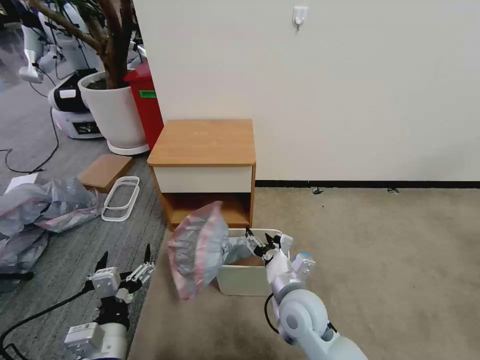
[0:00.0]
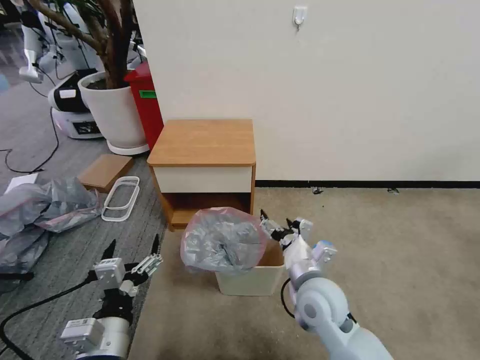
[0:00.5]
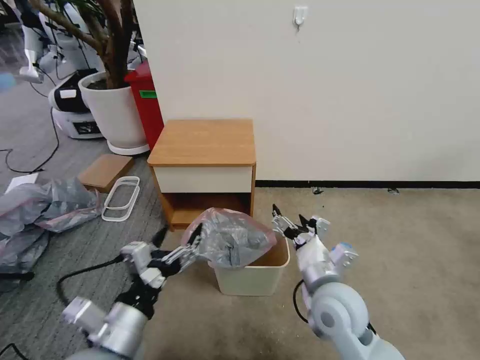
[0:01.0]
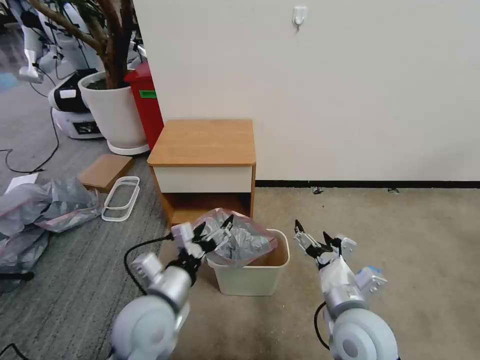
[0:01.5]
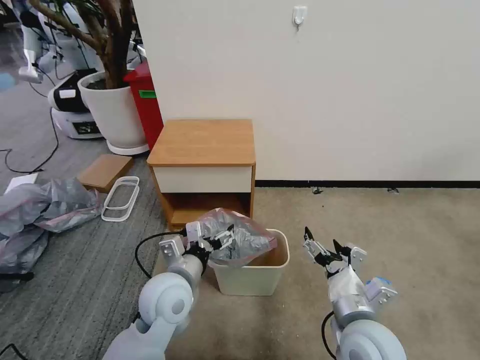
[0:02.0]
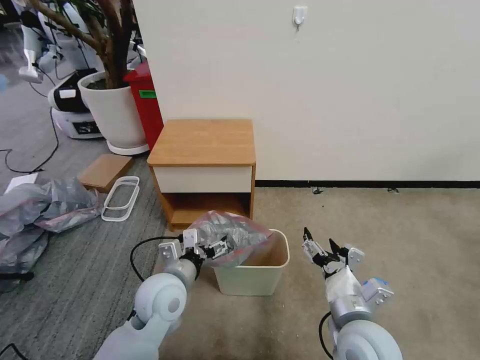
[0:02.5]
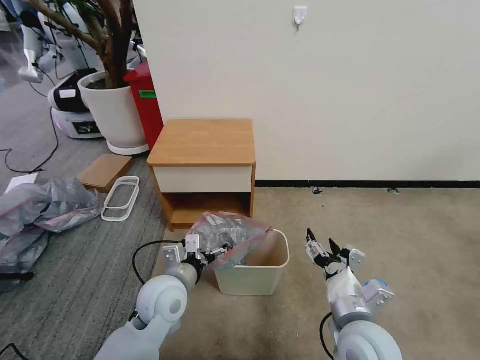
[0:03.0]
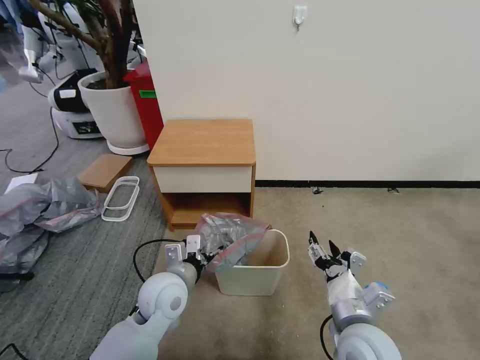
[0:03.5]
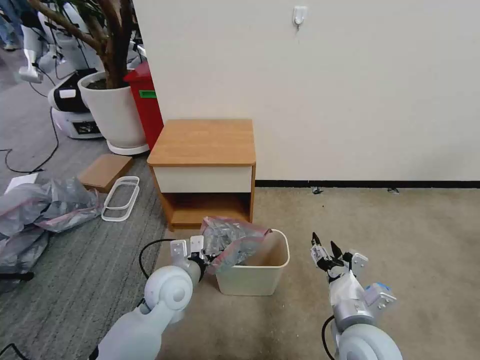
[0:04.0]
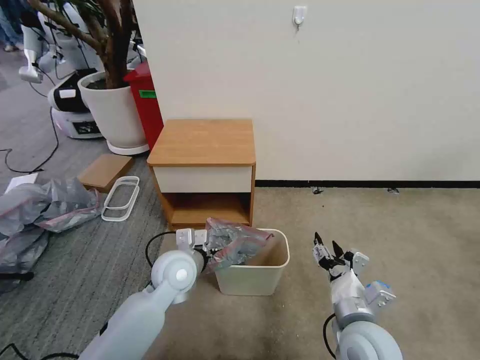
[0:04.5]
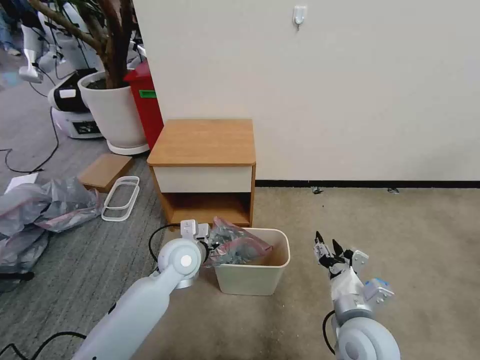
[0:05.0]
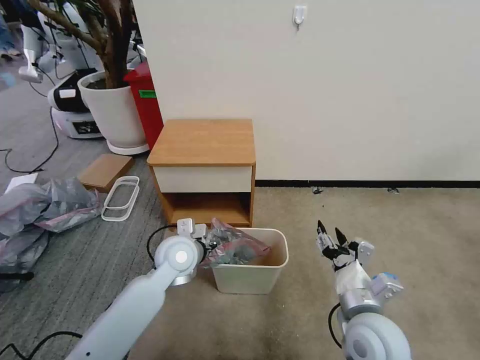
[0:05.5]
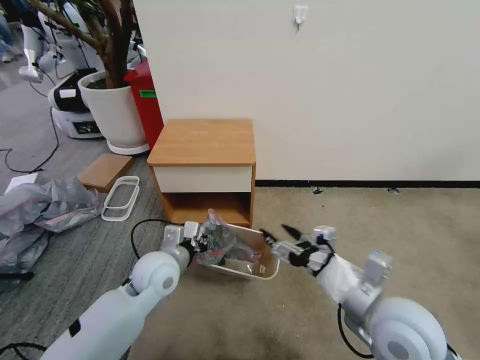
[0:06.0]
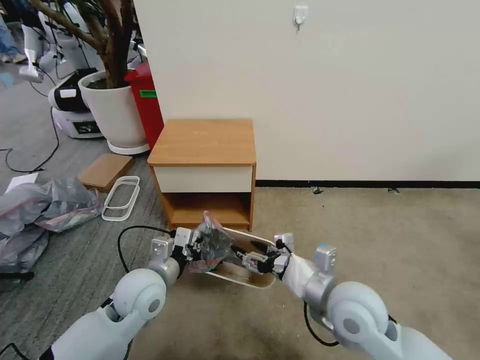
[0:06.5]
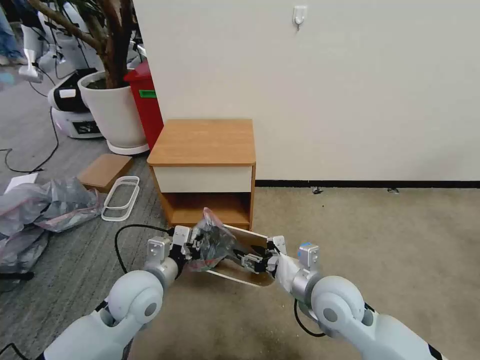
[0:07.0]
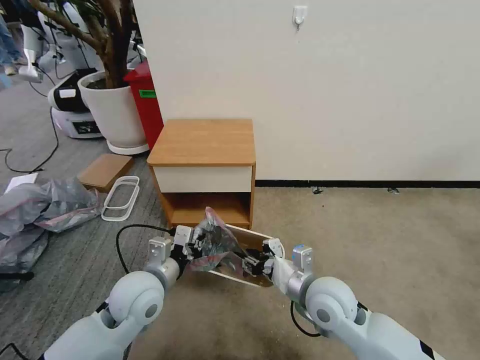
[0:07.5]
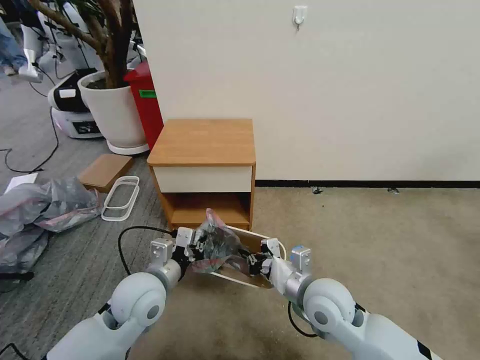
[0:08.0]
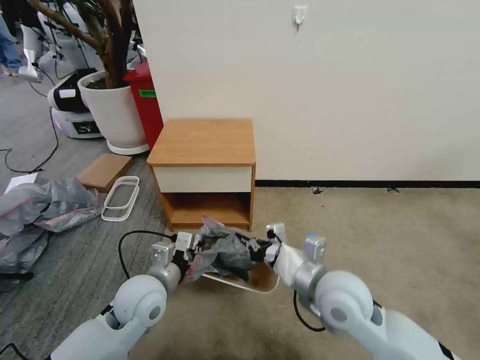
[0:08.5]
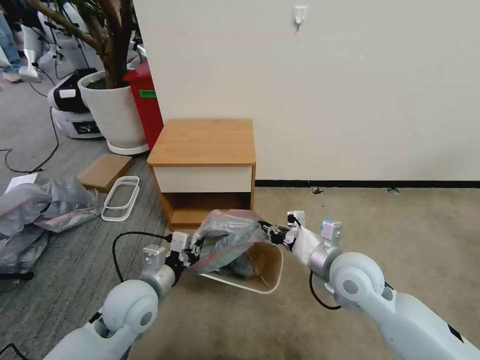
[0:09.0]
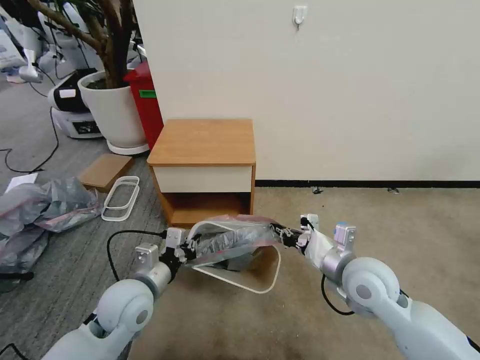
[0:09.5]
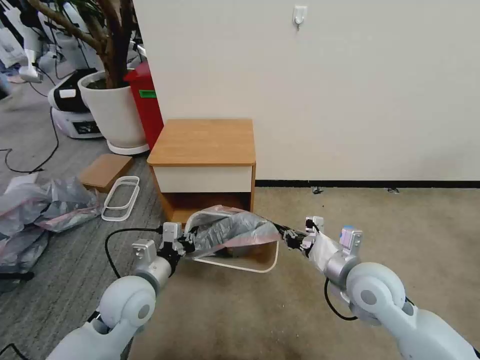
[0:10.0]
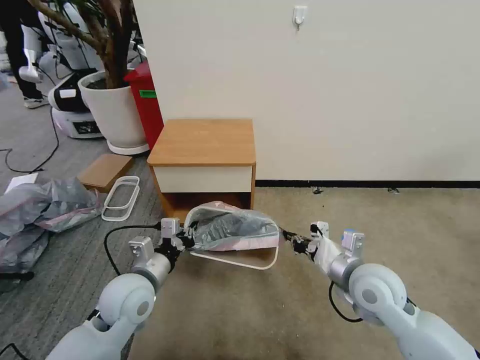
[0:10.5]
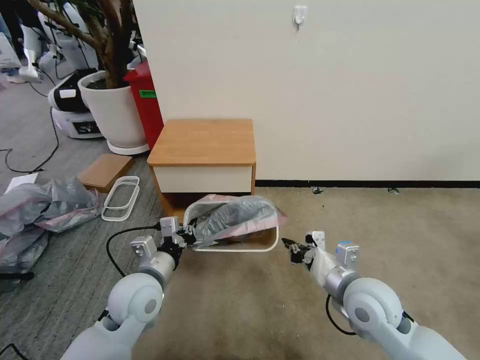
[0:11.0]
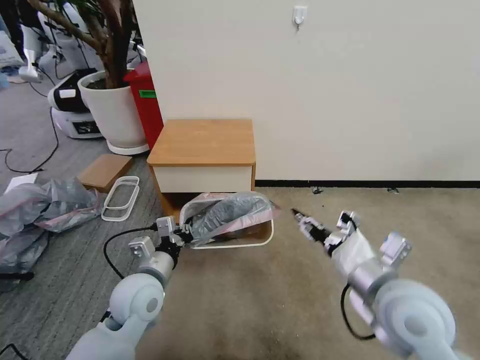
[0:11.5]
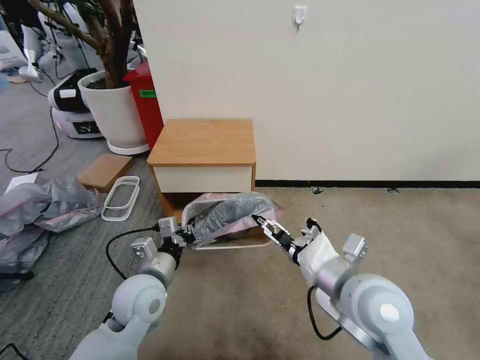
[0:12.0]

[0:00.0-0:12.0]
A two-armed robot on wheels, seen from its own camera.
Task of the whole recording: Pick up the garbage bag from the table and place it over the trash can.
0:00.0 to 0:02.0: The left gripper travels forward and to the right by approximately 15 cm. The right gripper is displaced to the right and backward by approximately 10 cm.
0:02.0 to 0:04.0: The grippers move only a little.
0:04.0 to 0:06.0: The left gripper closes its fingers. The right gripper heads upward, covering roughly 10 cm.
0:06.0 to 0:08.0: The left gripper goes roughly 5 cm backward; the right gripper travels downward, to the left and forward by about 15 cm, and closes up.
0:08.0 to 0:10.0: The right gripper goes about 10 cm to the right.
0:10.0 to 0:12.0: The right gripper travels upward and backward by roughly 10 cm, and opens its fingers.

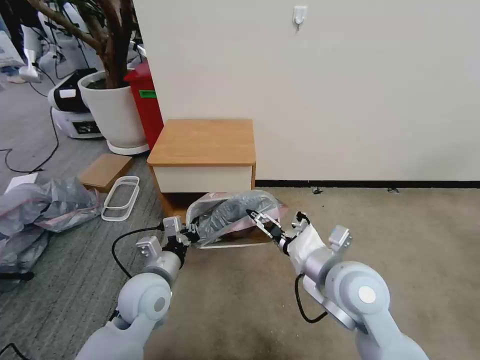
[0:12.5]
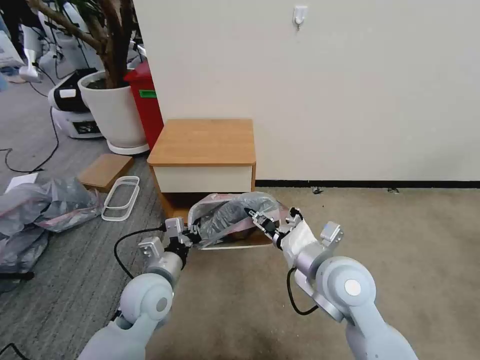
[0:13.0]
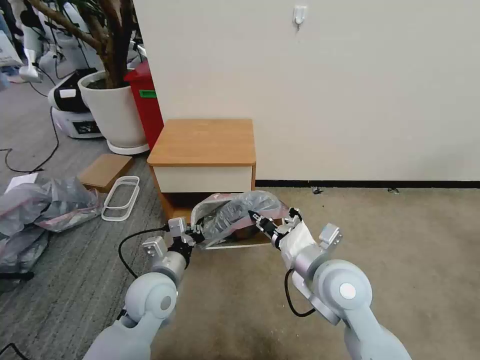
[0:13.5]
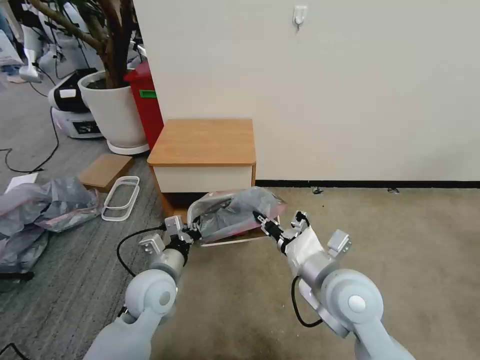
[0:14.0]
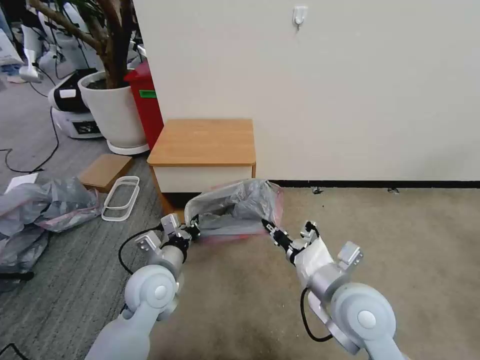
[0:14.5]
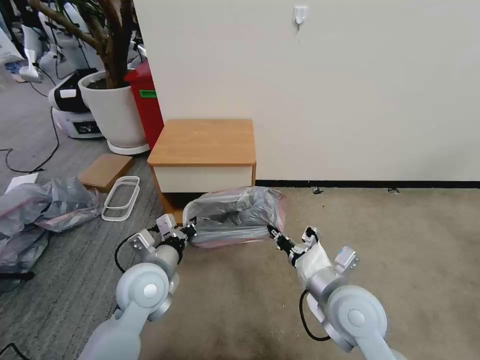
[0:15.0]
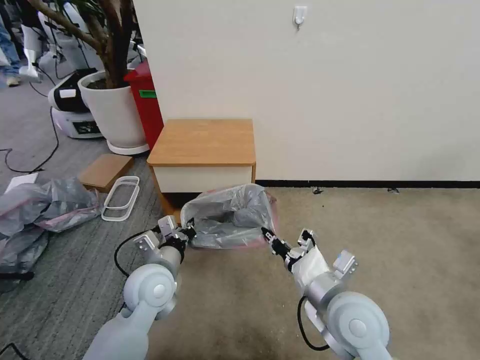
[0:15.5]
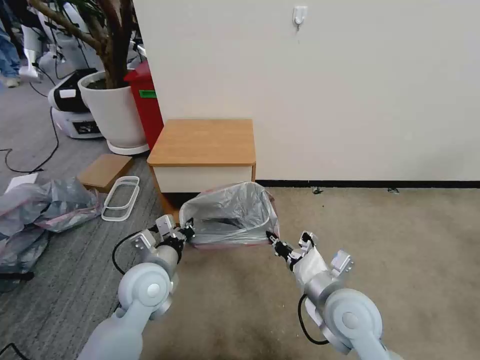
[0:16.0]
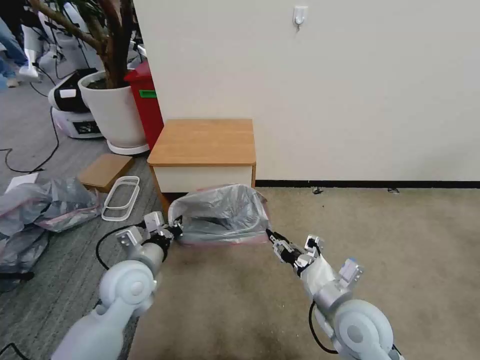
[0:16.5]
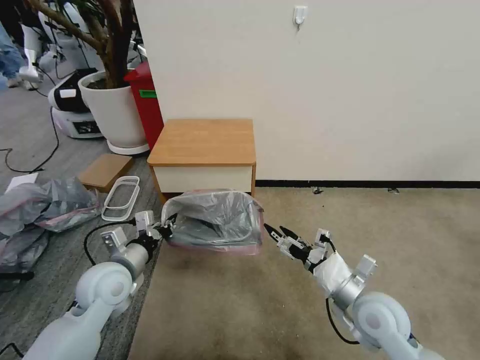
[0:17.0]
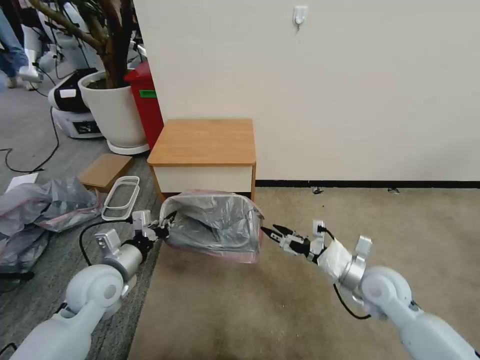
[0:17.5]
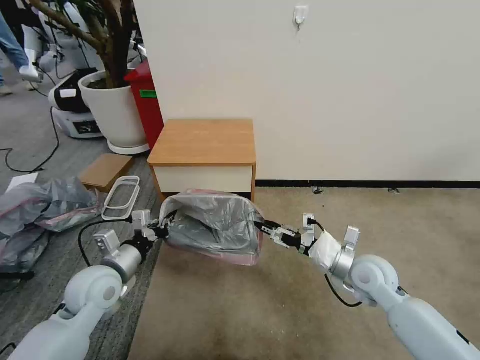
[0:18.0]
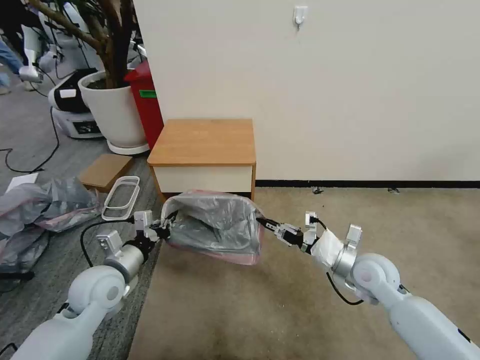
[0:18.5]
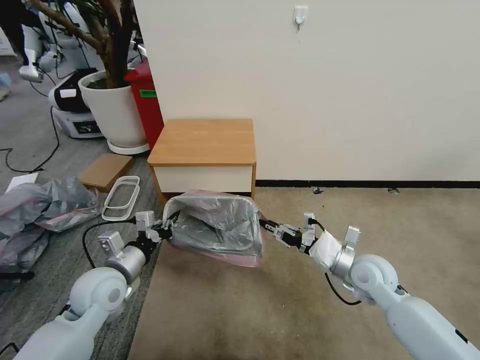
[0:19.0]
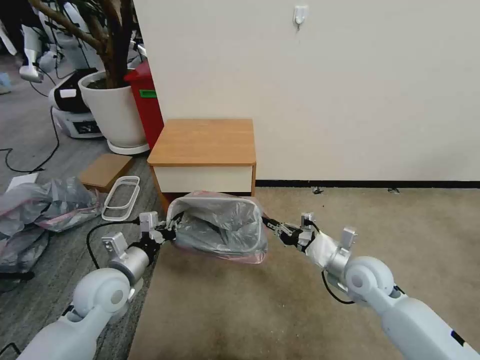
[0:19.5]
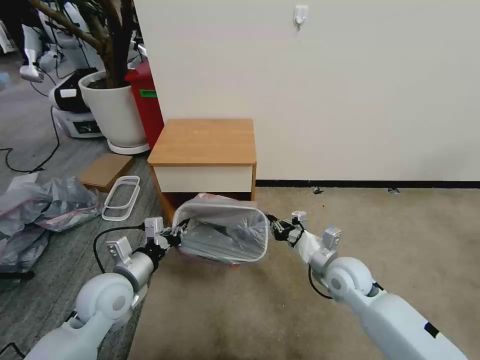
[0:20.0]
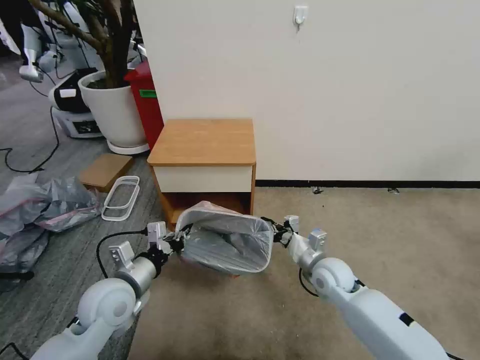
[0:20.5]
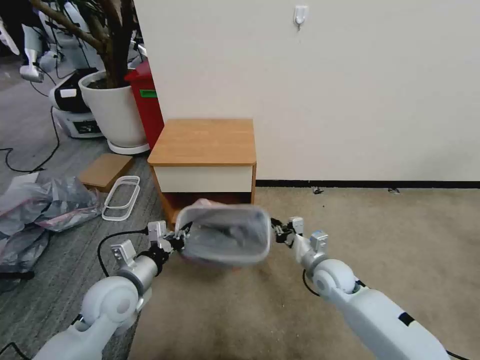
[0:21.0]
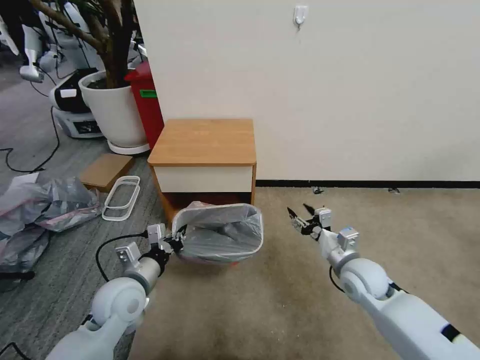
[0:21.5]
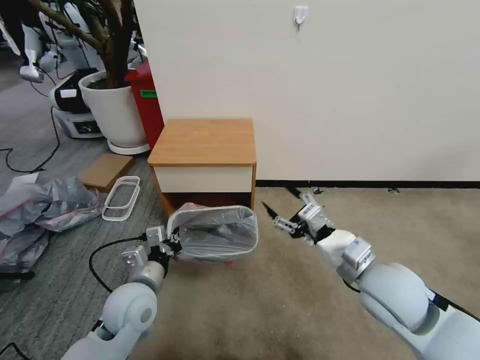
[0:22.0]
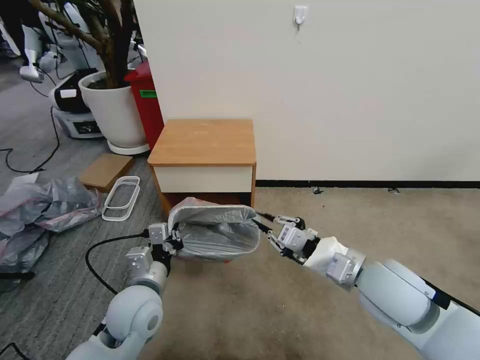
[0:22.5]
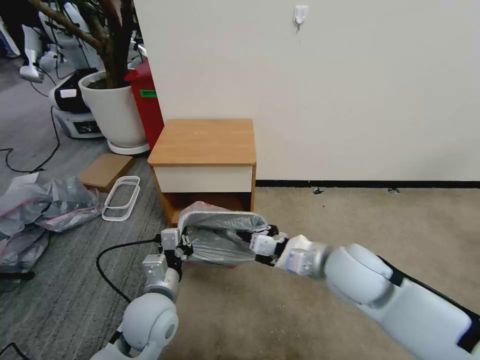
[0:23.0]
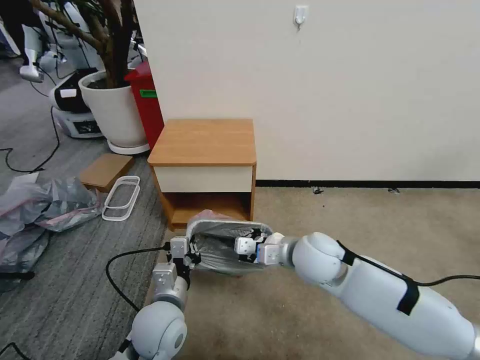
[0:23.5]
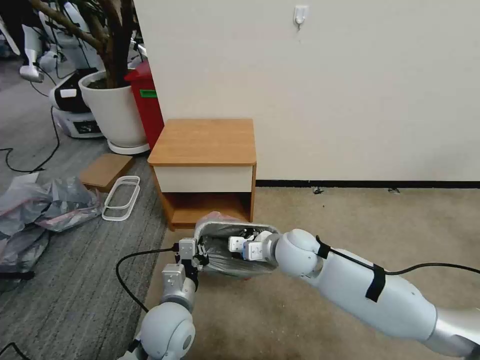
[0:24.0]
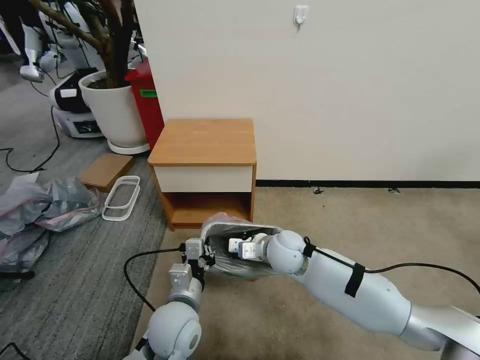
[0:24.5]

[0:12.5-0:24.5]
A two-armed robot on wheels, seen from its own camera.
Task of the whole recording: Pick up the garbage bag from the table and place it over the trash can.
0:12.5 to 0:14.5: The right gripper closes its fingers.
0:14.5 to 0:16.5: The right gripper travels downward by approximately 5 cm, and opens.
0:16.5 to 0:18.5: The left gripper travels to the left by some 5 cm. Meanwhile the right gripper shifts some 15 cm forward and to the right, and opens, then closes again.
0:18.5 to 0:20.5: The right gripper heads to the left and downward, covering approximately 10 cm.
0:20.5 to 0:22.5: The left gripper heads to the right, covering approximately 5 cm, while the right gripper shifts approximately 20 cm upward and backward, and opens and closes again.
0:22.5 to 0:24.5: The left gripper travels to the right by about 5 cm; the right gripper goes about 20 cm to the left, forward and downward.

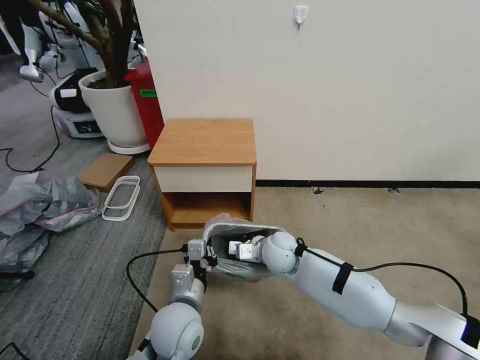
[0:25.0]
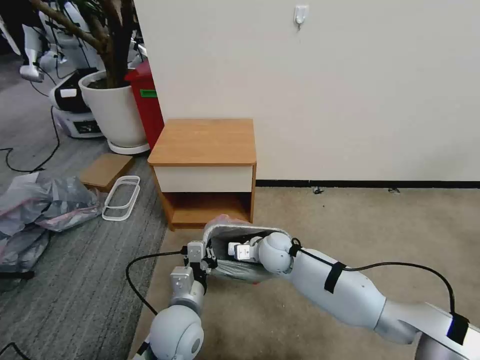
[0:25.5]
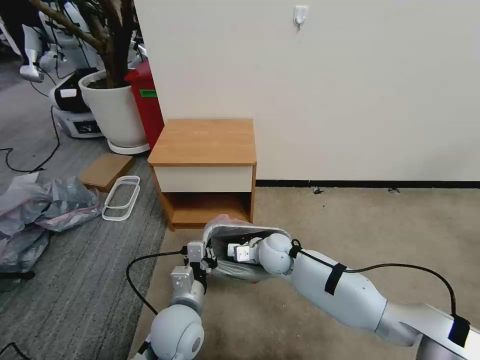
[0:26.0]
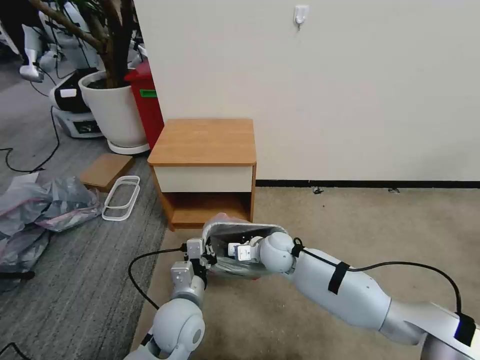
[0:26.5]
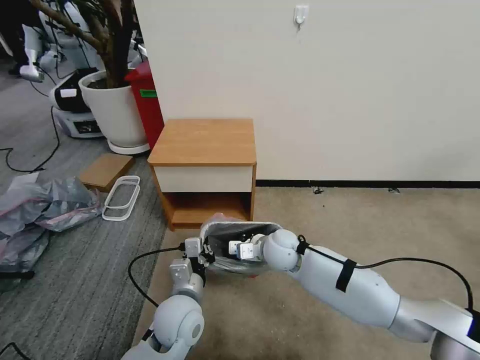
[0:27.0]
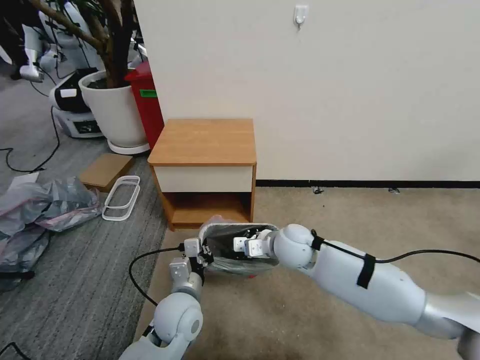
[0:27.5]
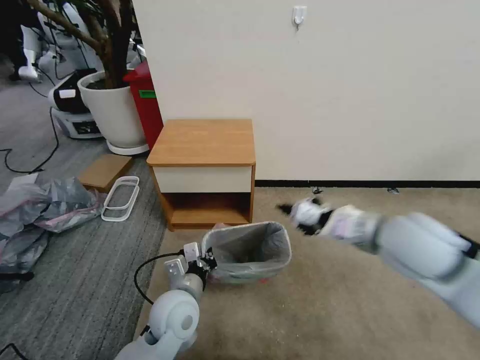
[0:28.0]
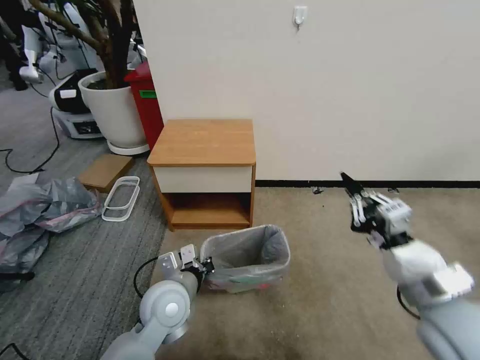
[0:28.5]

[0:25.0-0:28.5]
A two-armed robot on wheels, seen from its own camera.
Task of the whole recording: Pick up the garbage bag from the table and place it over the trash can.
0:25.0 to 0:27.0: The grippers move only a little.
0:27.0 to 0:28.5: The right gripper travels backward, to the right and upward by roughly 35 cm.
